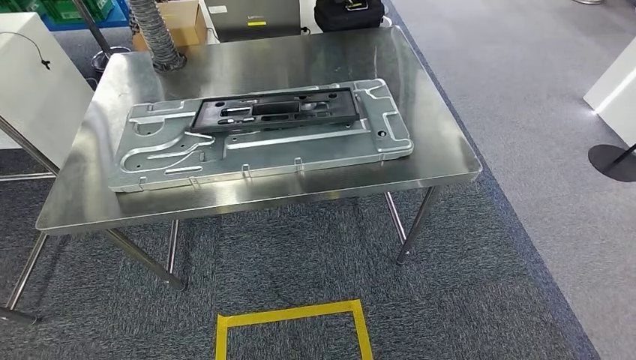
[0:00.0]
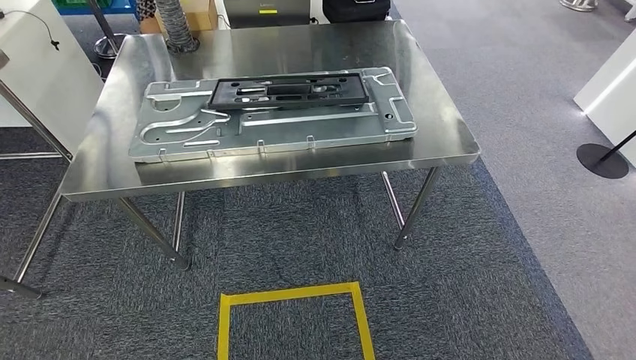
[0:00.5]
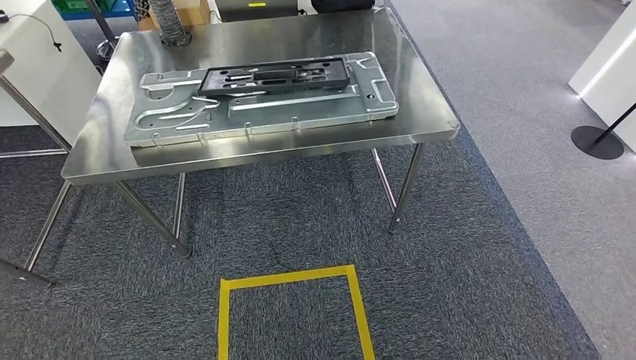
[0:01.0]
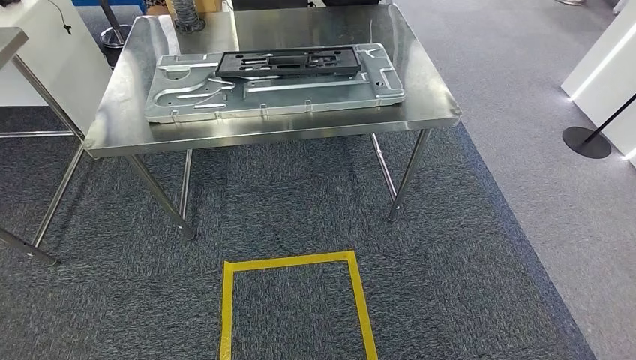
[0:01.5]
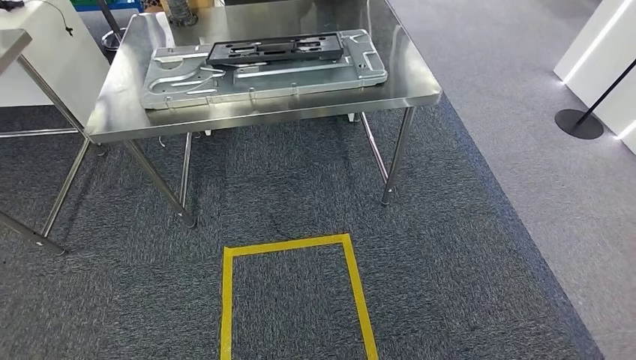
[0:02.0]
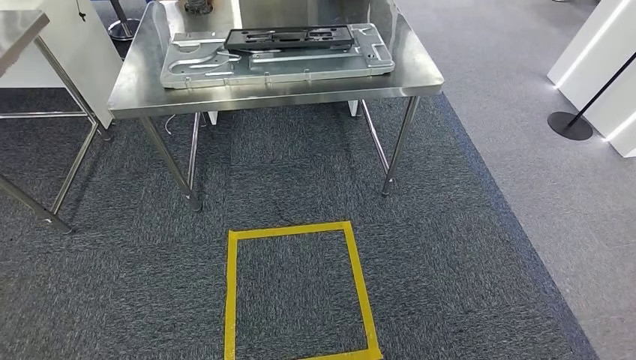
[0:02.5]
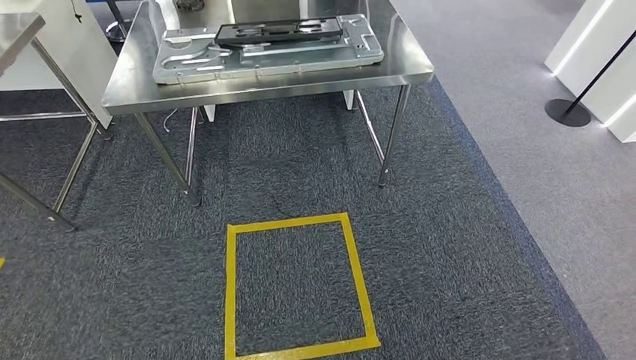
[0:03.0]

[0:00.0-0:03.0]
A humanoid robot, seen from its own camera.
Step, 0:00.0 to 0:03.0: Move to the initial position of the shelf.
